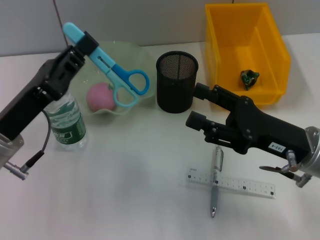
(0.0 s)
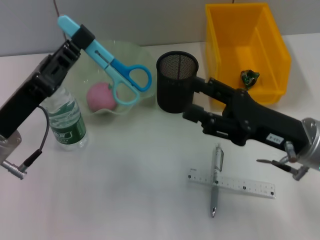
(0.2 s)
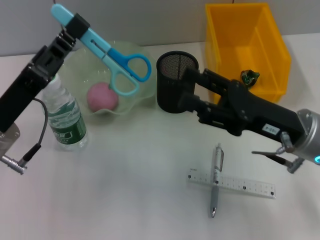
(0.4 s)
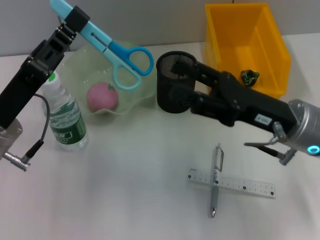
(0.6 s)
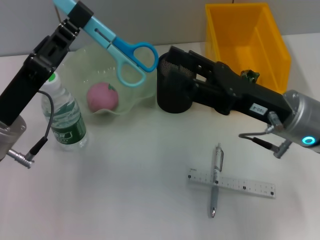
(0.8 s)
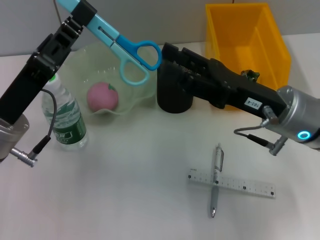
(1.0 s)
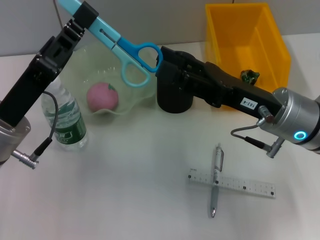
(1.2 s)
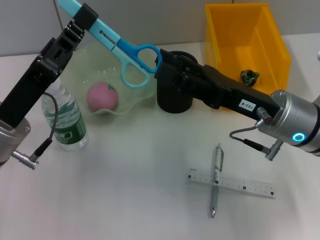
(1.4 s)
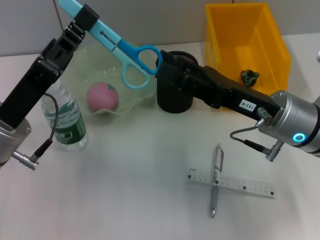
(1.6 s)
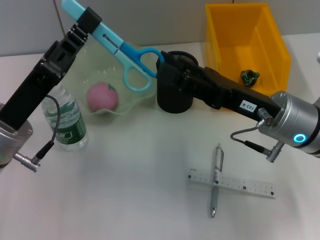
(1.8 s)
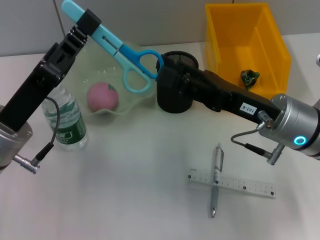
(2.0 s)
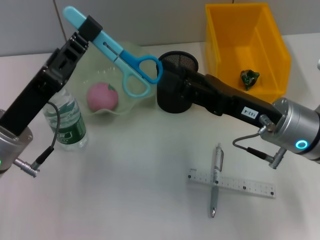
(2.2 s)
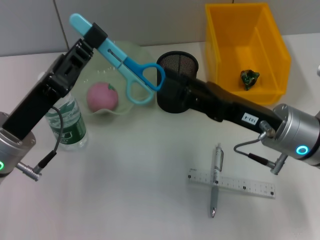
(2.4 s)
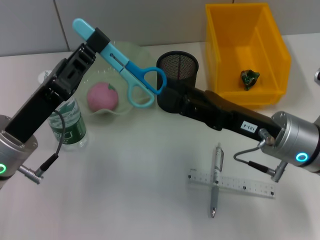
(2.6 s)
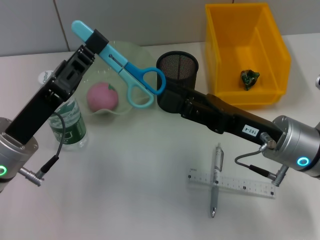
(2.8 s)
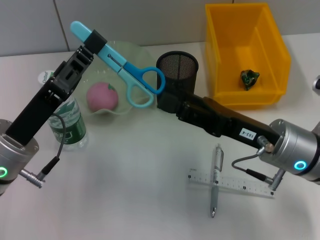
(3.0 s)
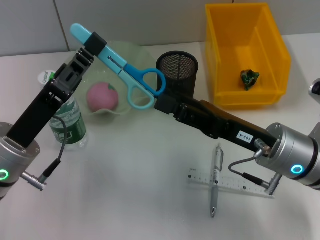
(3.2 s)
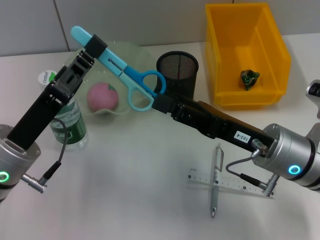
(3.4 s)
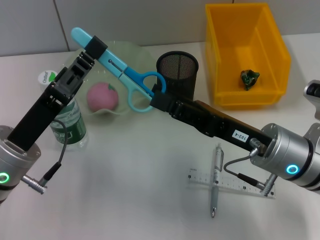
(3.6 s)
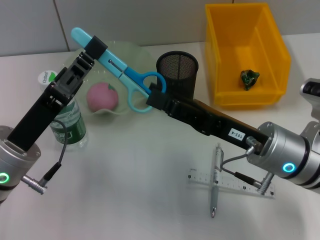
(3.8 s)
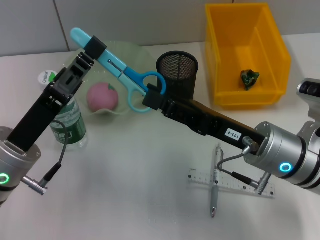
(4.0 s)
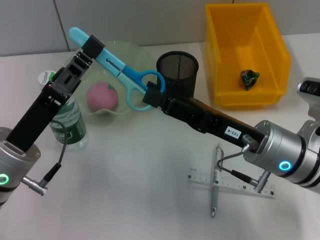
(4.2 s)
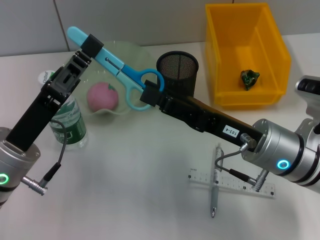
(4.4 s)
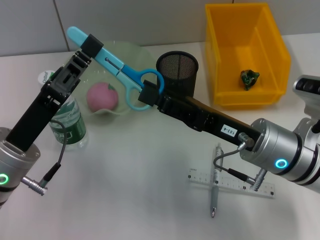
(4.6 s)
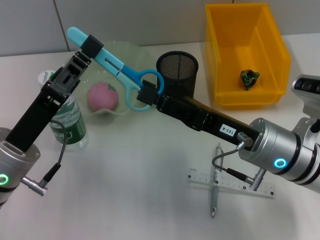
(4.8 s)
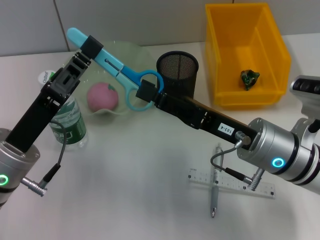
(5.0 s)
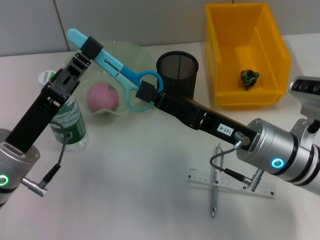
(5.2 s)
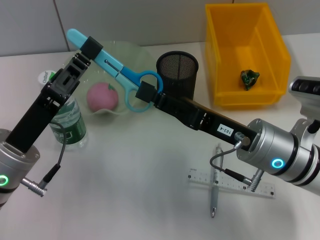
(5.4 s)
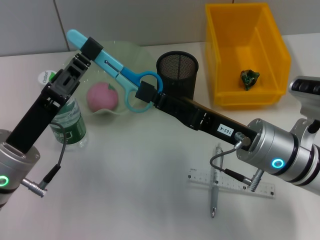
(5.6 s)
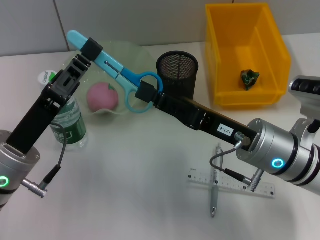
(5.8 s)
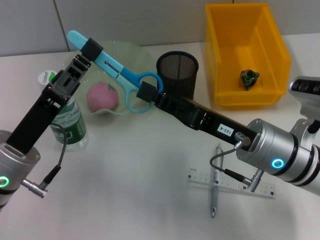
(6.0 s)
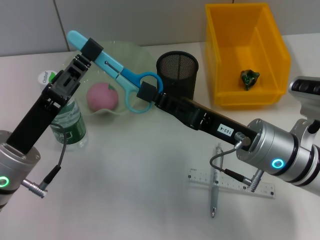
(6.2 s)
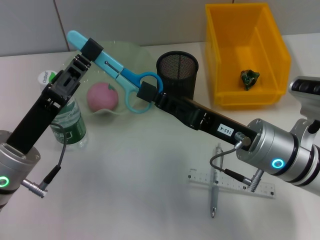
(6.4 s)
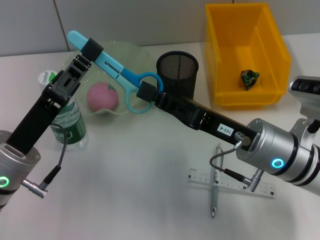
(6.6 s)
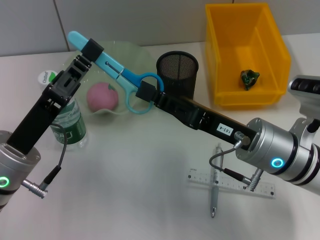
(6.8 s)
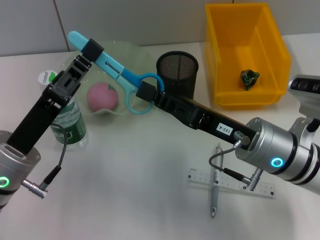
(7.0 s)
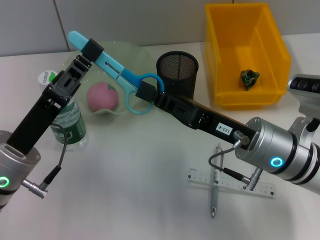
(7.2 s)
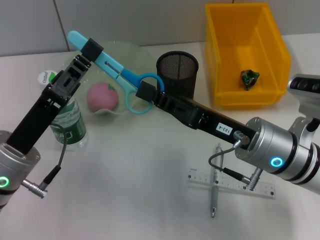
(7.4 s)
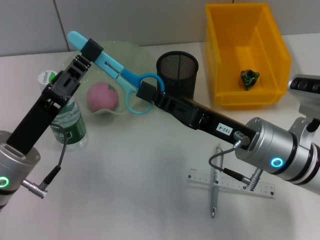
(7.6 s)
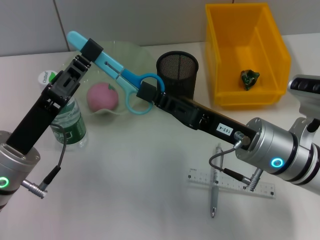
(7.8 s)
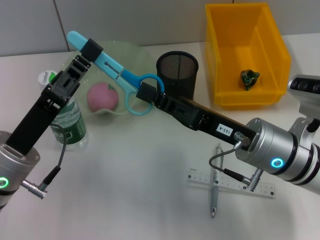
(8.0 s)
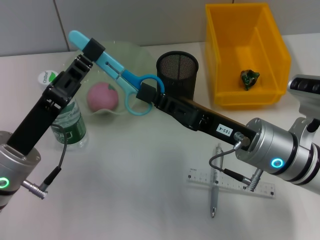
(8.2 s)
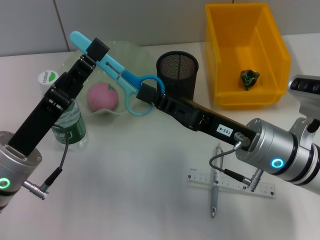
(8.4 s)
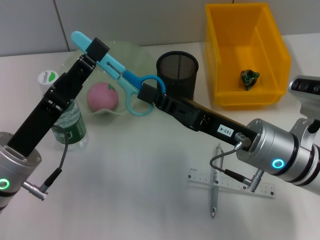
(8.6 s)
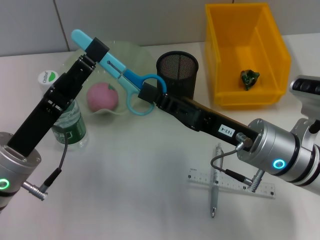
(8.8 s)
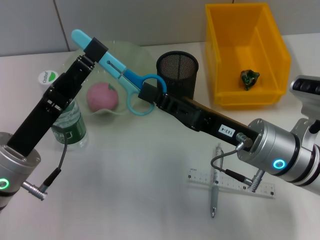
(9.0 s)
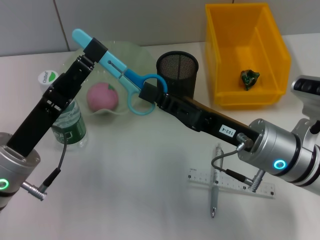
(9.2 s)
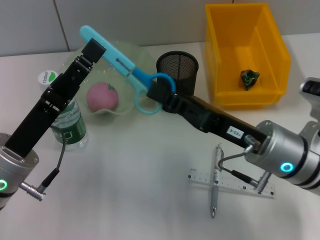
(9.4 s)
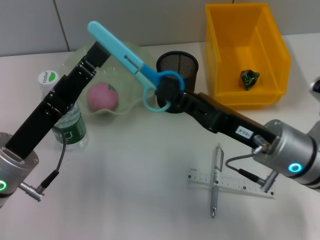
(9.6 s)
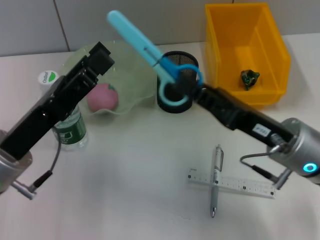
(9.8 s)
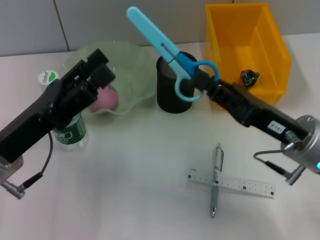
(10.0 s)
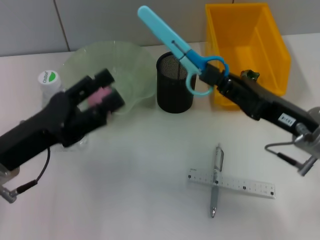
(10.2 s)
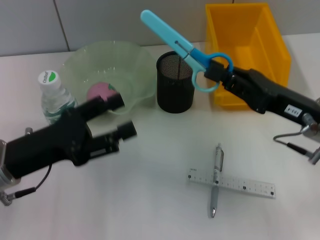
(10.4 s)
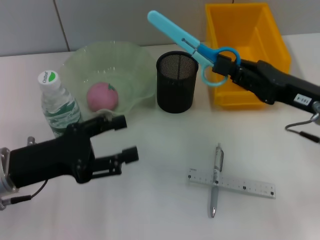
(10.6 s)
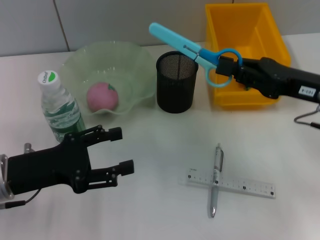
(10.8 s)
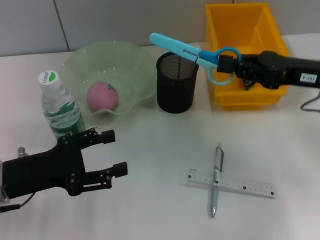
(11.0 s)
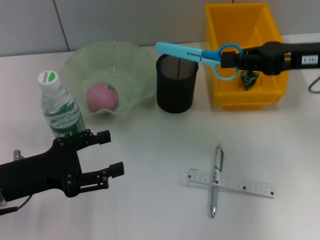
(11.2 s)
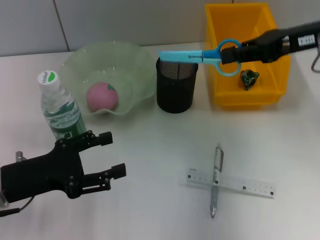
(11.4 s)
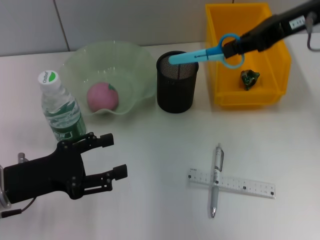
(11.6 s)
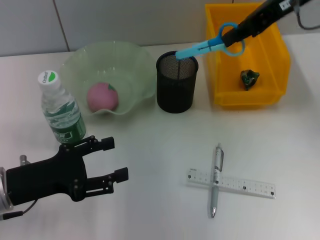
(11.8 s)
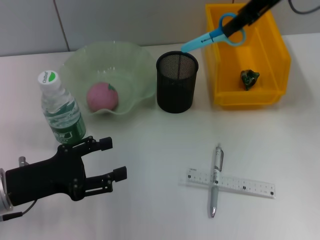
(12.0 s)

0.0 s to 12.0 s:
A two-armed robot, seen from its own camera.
Step, 0.0 to 8.6 s: Pass the blue scissors from the left hand to the right hand.
0.0 to 1.6 s: The right gripper shifts by some 5 cm.
3.0 to 4.4 s: The grippers stay close to where they were, moving slightly.
4.4 to 6.0 s: The right gripper closes up.
6.0 to 7.6 s: Both grippers stay put.
7.6 to 9.0 s: The left gripper opens its fingers.
9.0 to 10.4 s: The right gripper travels to the right by approximately 10 cm.
10.4 to 12.0 s: The right gripper heads upward and forward, covering some 25 cm.

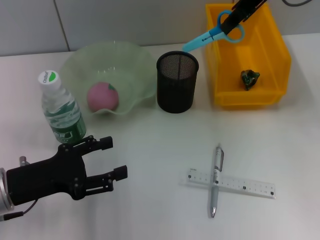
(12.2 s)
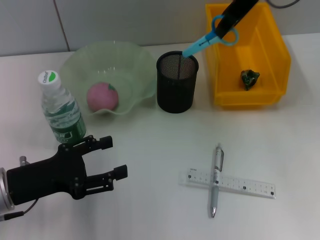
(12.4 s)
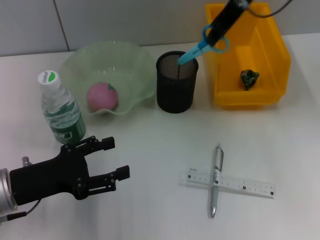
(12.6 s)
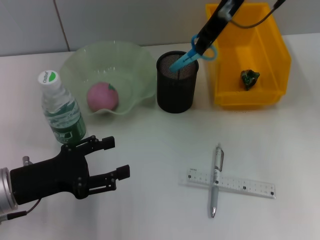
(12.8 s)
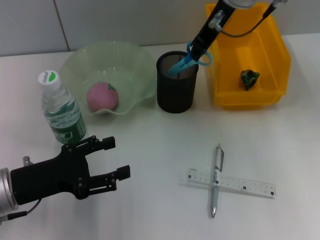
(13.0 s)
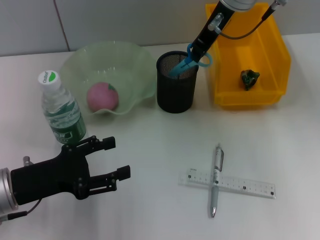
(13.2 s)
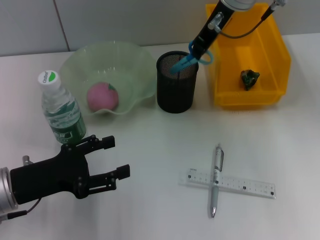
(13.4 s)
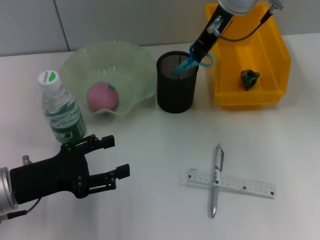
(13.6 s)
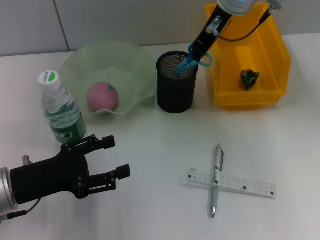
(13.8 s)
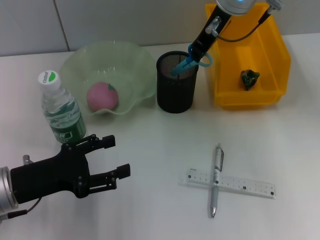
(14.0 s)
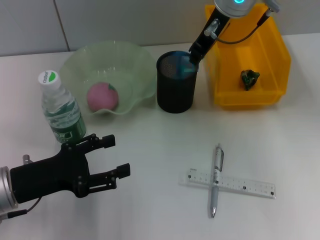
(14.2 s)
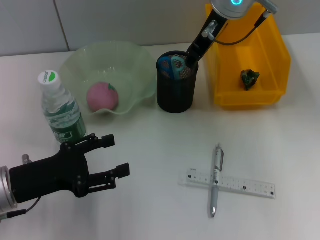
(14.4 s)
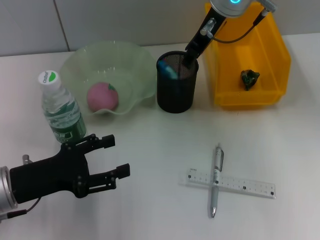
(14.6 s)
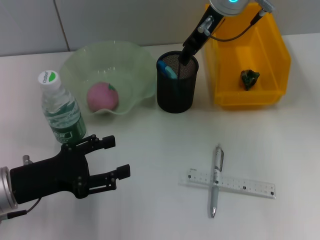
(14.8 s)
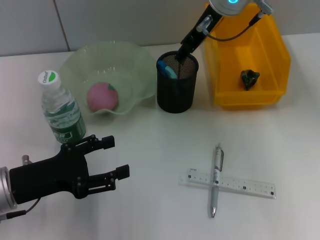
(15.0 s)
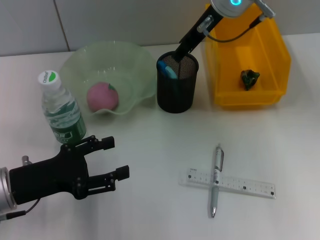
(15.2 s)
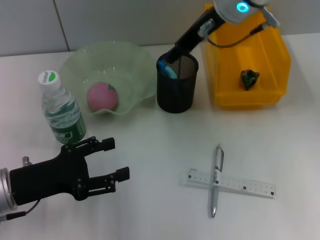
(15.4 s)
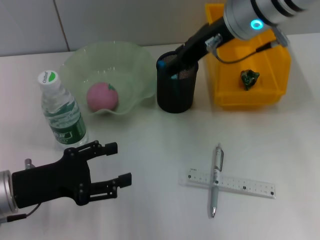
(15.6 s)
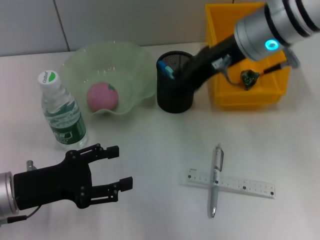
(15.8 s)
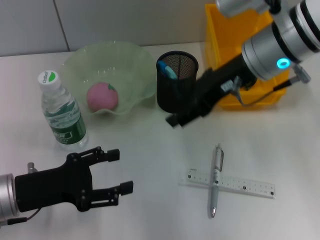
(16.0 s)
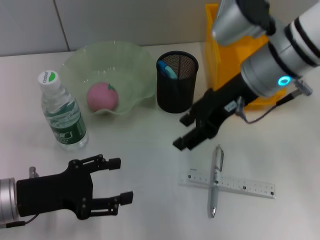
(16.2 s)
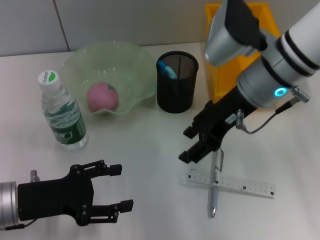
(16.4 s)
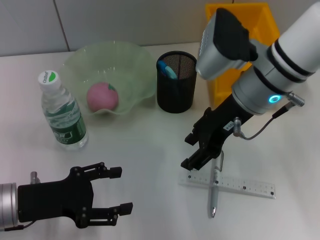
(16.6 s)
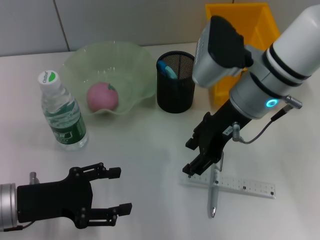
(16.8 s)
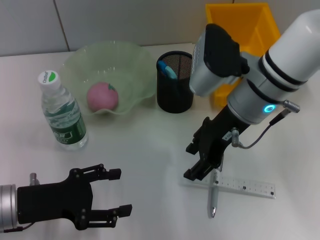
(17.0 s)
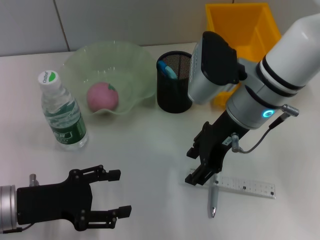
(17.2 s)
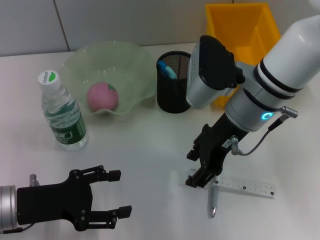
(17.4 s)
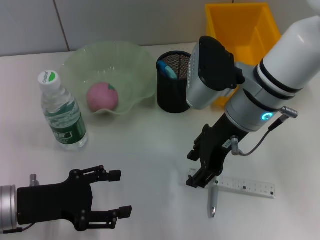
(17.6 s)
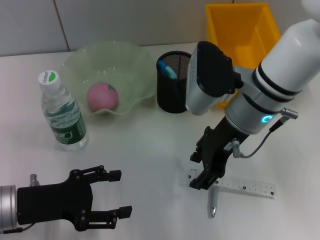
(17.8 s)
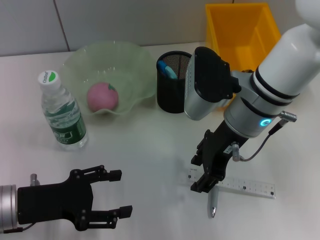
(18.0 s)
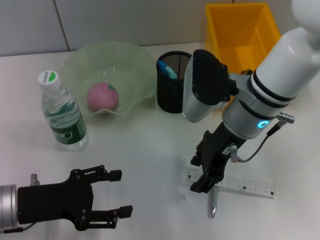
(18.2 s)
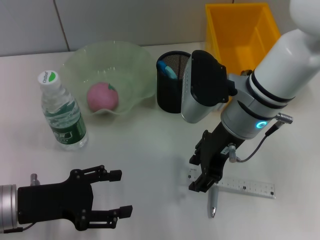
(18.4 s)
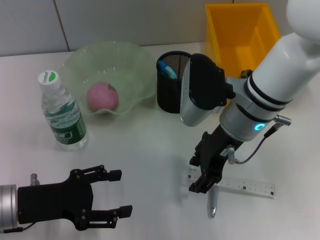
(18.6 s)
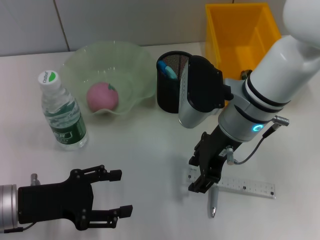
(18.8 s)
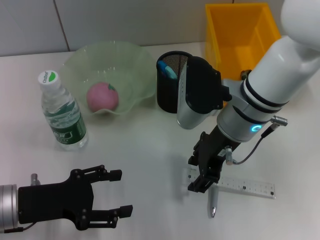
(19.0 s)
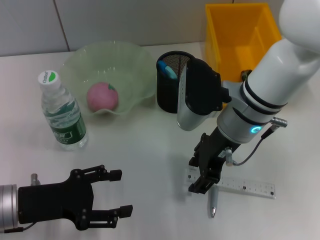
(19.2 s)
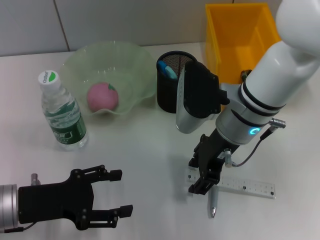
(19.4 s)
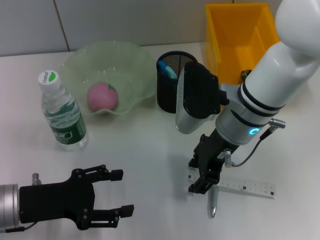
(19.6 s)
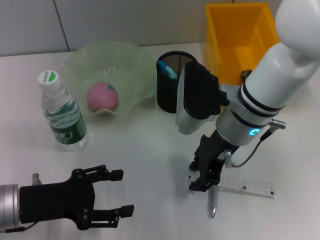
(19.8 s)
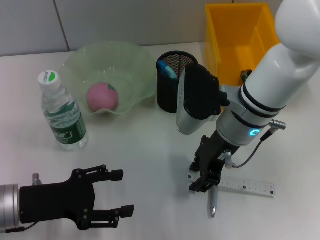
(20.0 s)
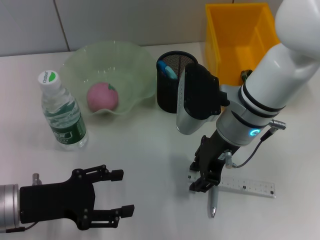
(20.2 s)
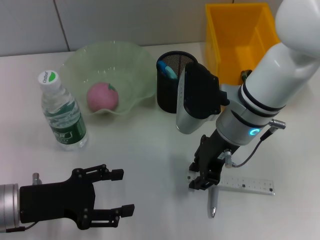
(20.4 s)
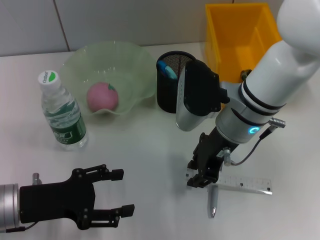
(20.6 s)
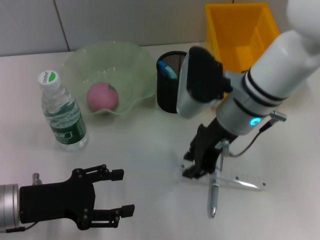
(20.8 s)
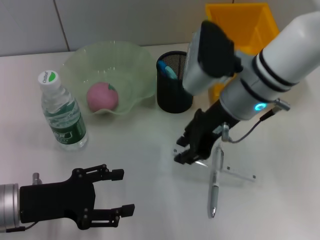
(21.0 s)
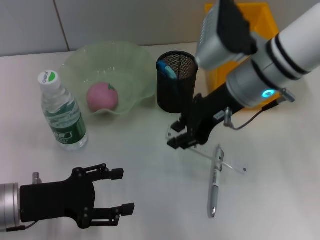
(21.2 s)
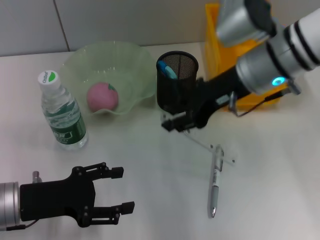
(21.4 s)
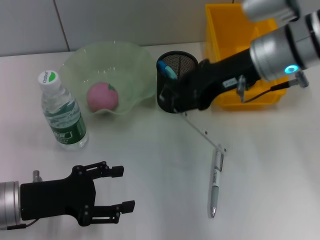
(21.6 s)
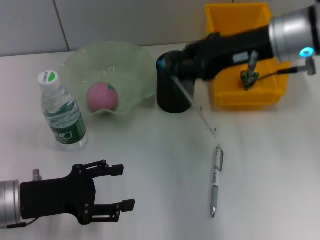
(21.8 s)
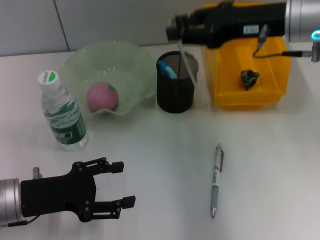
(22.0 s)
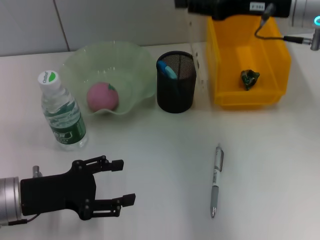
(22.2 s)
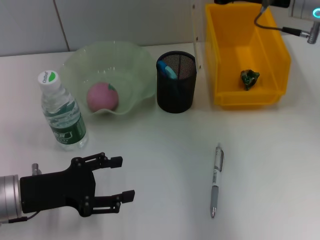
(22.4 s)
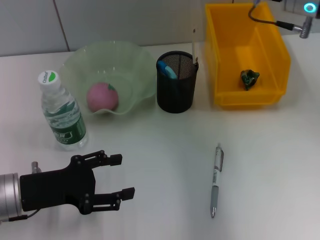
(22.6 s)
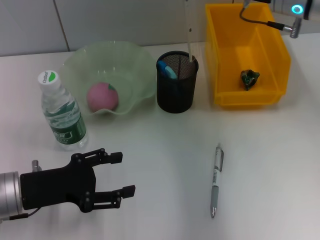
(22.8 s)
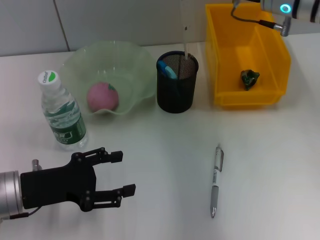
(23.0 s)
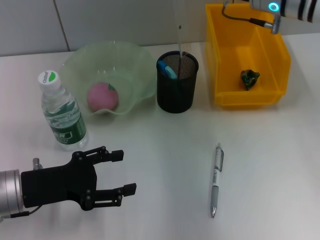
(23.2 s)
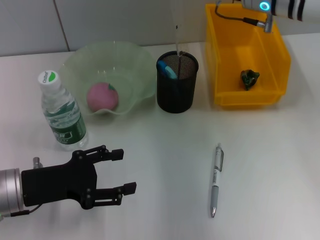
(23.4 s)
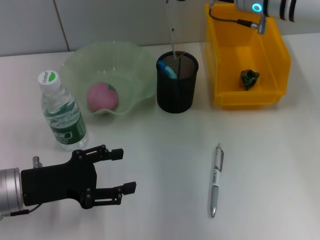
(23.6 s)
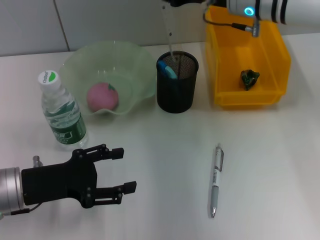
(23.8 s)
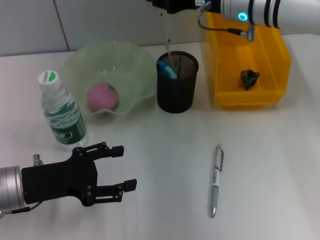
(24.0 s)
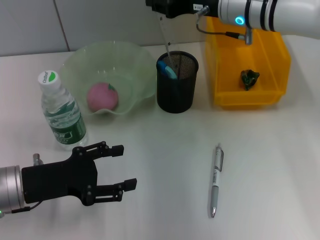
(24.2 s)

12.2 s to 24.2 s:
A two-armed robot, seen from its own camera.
Step, 12.2 to 14.6 s: Place the blue scissors into the pen holder with the right hand.
Step, 14.8 to 20.2 s: Grab the ruler with the right hand.
12.2 to 13.8 s: The right gripper goes about 10 cm to the left and downward.
13.8 to 15.2 s: The right gripper opens up.
15.2 to 16.6 s: The right gripper travels backward and downward by some 10 cm.
16.6 to 19.8 s: The grippers stay close to where they were, moving slightly.
19.8 to 21.2 s: The right gripper travels upward by about 5 cm.
21.2 to 22.6 s: The right gripper shifts about 10 cm to the right.
22.6 to 24.2 s: The right gripper heads to the left, covering about 5 cm.
